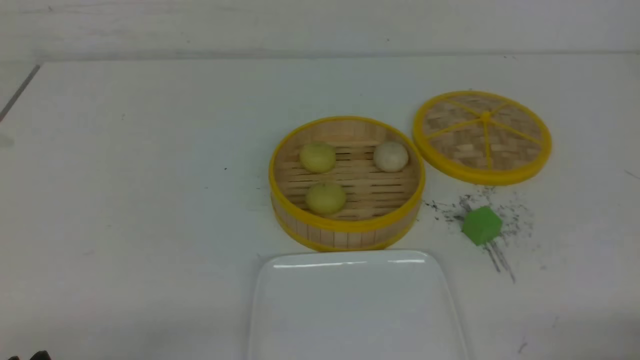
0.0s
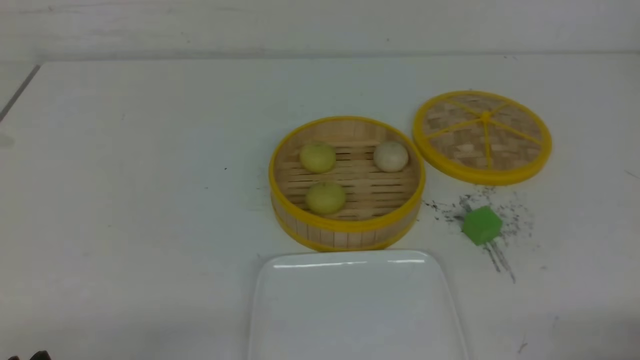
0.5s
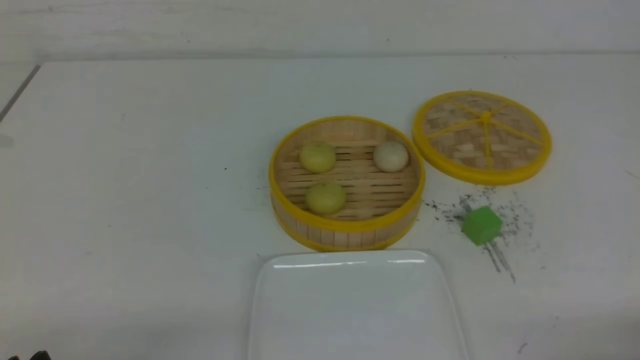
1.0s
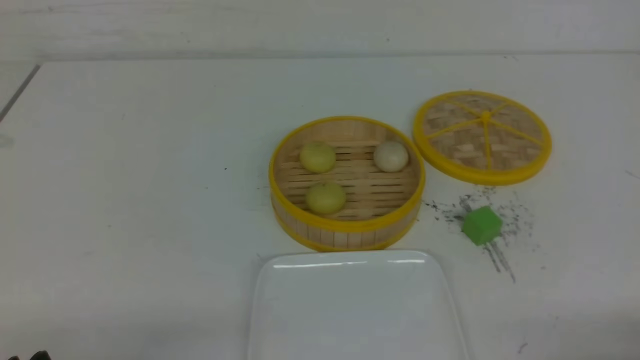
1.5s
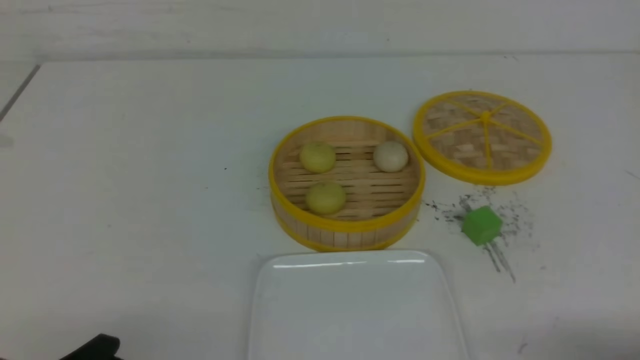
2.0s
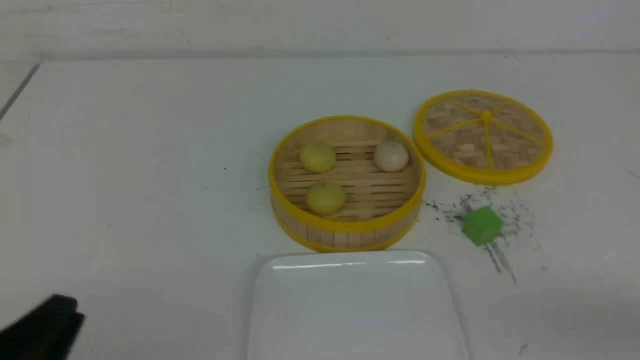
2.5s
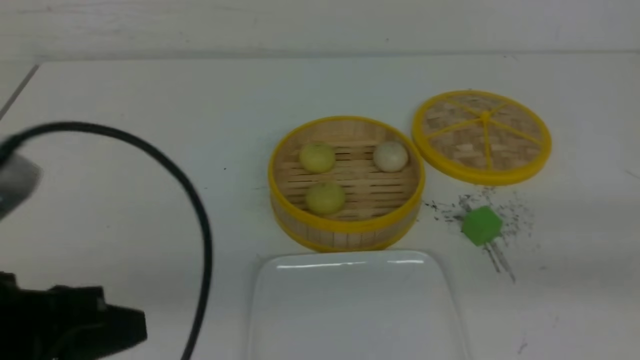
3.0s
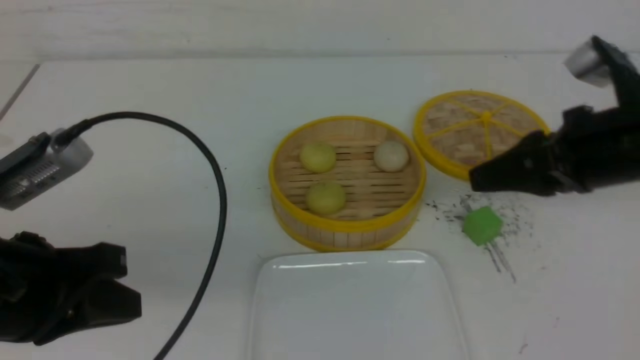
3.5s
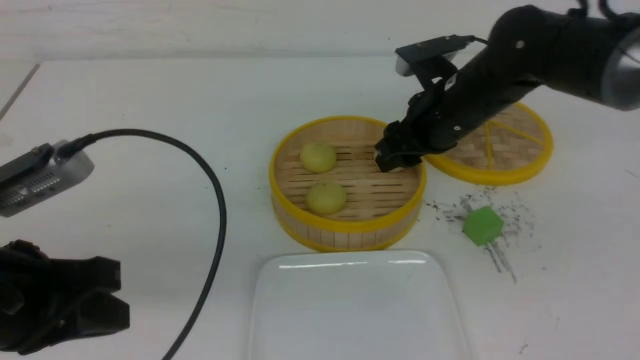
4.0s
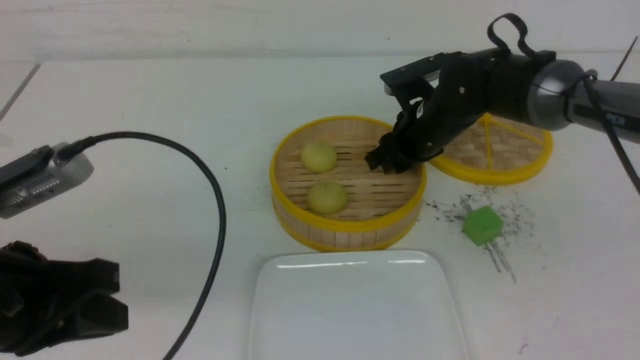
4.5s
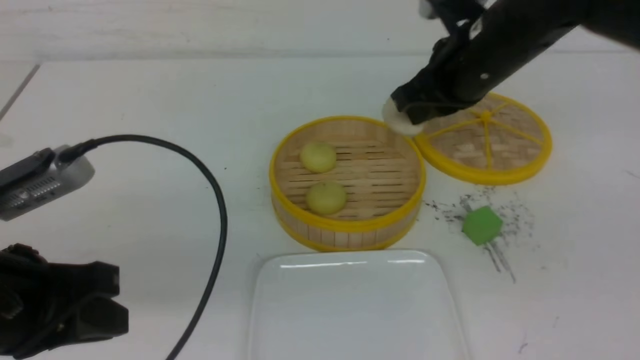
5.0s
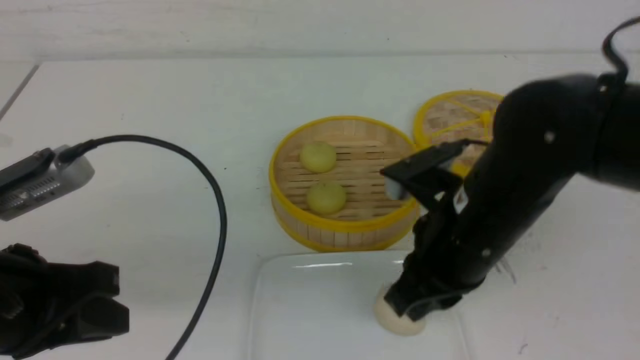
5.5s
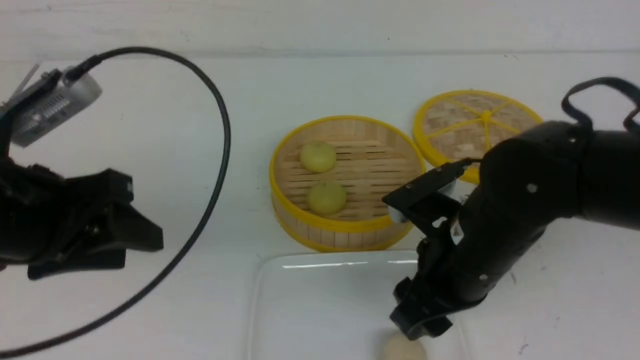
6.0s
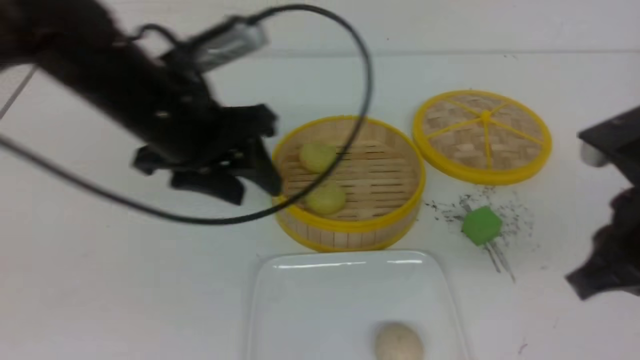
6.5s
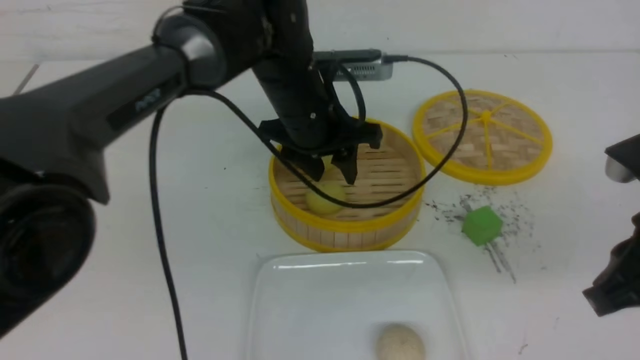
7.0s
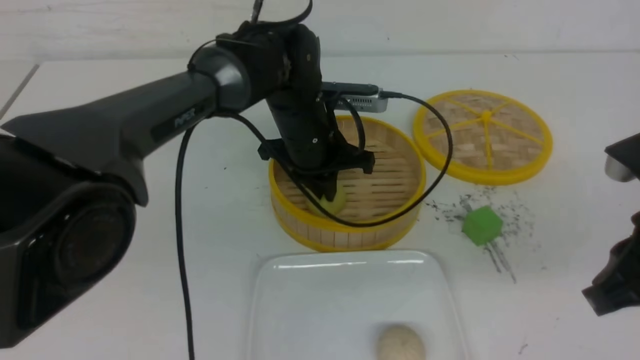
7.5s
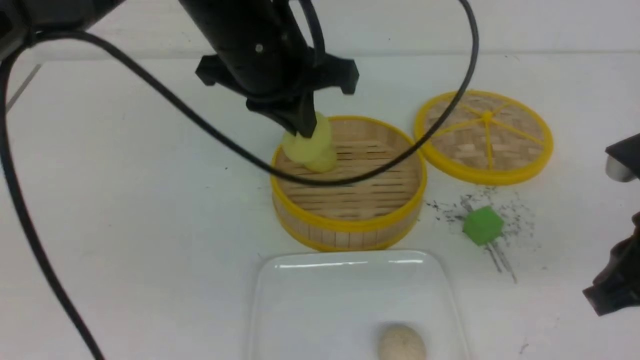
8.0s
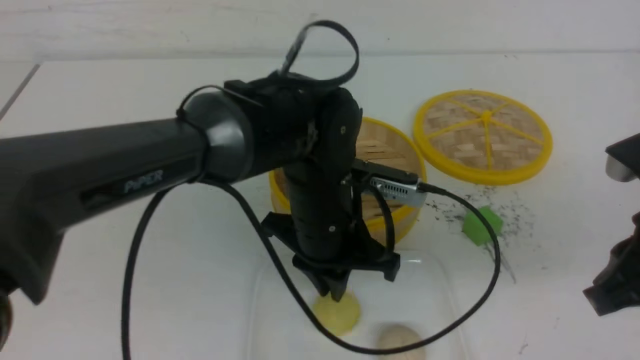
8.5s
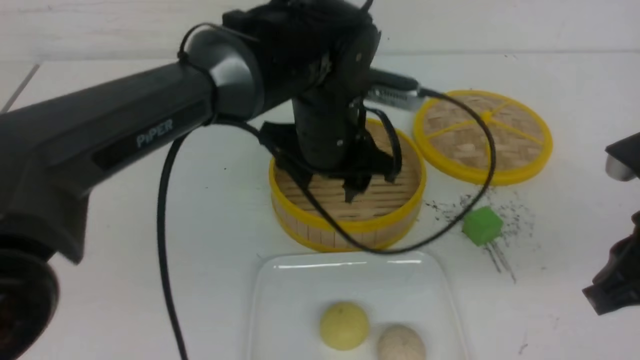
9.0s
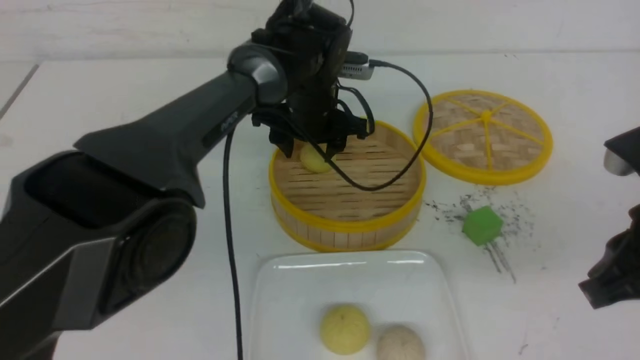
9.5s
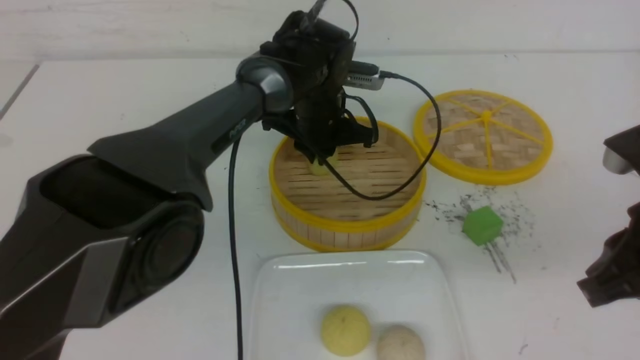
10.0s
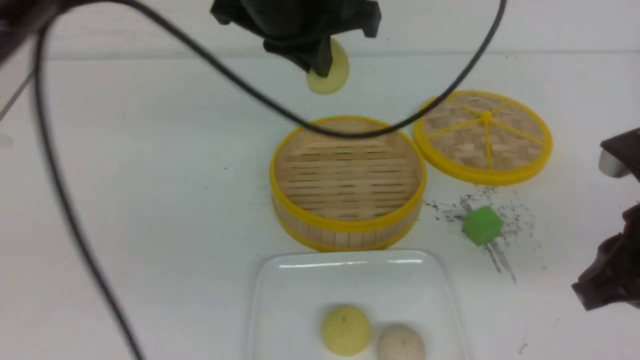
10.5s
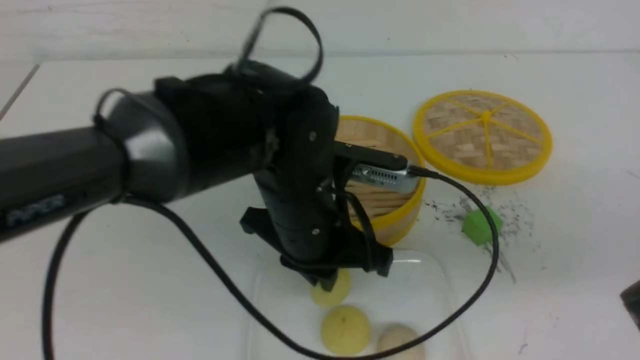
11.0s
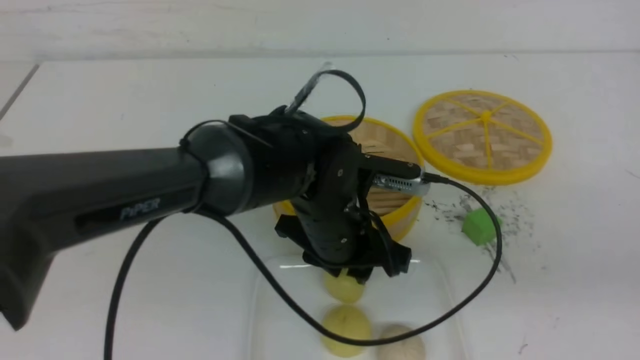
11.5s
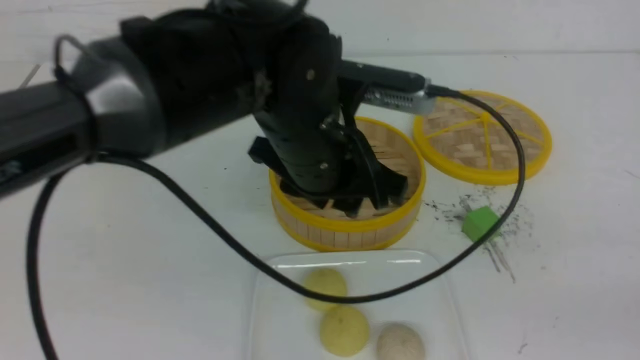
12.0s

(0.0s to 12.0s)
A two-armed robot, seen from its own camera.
Step, 0.0s - 4.5s: use the right arm to grab the steamed stuffed bun that is closest to it.
Step, 5.0s - 5.5s: use the right arm to put the steamed stuffed bun into the plate.
Step, 6.0s - 7.5s: use the left arm to grab the steamed stuffed bun that is closest to it.
Step, 8.0s - 8.5s: use the left arm to put the steamed stuffed bun into the plate.
Step, 9.0s - 10.0s: use the left arm to grab the steamed stuffed bun that is closest to it.
Step, 10.5s - 11.5s: use the left arm to put the steamed stuffed bun into the plate.
2.0s - 4.0s: The left gripper moves upward and forward, about 15 cm, and closes. The right gripper shifts roughly 40 cm forward and to the left, and closes, then reopens.
4.0s - 6.0s: The right gripper moves backward, approximately 15 cm, and closes, then reopens, while the left gripper travels forward by about 5 cm, and opens up.
6.0s - 8.0s: The left gripper is displaced to the right and forward by some 20 cm, and closes. The right gripper is displaced to the right, upward and backward by about 15 cm, and closes up.
8.0s - 10.0s: The left gripper heads forward and downward, covering roughly 15 cm, and opens, then closes once more.
10.0s - 12.0s: The left gripper travels backward by about 15 cm. The right gripper heads backward and to the right, covering some 20 cm.

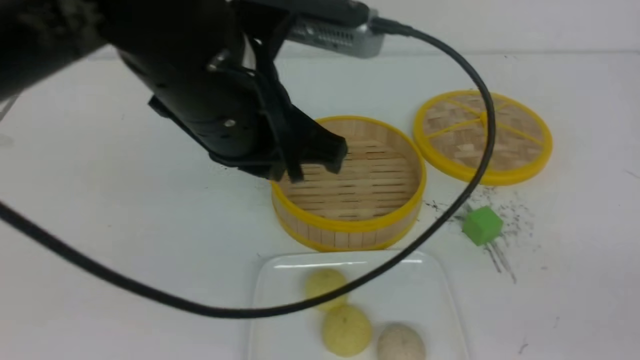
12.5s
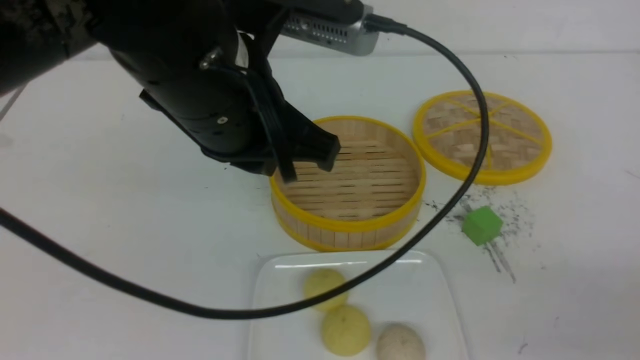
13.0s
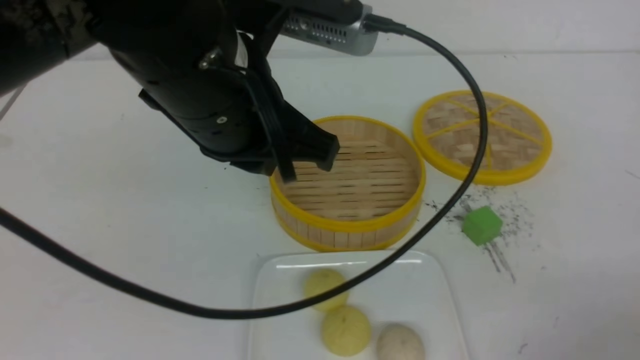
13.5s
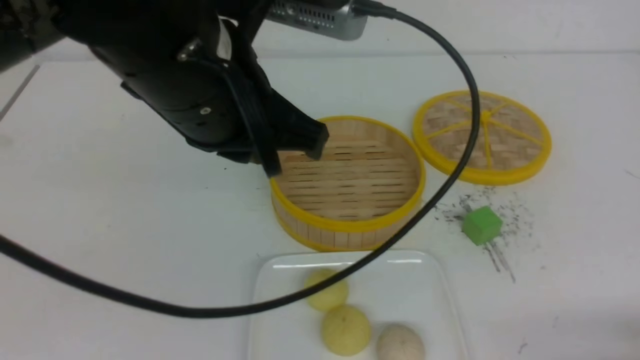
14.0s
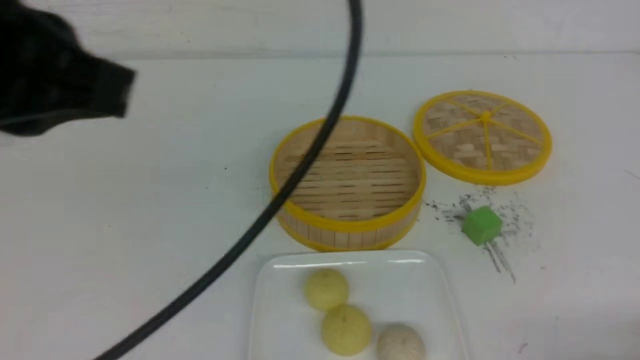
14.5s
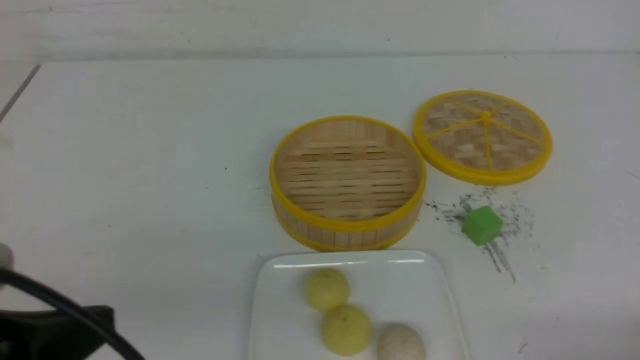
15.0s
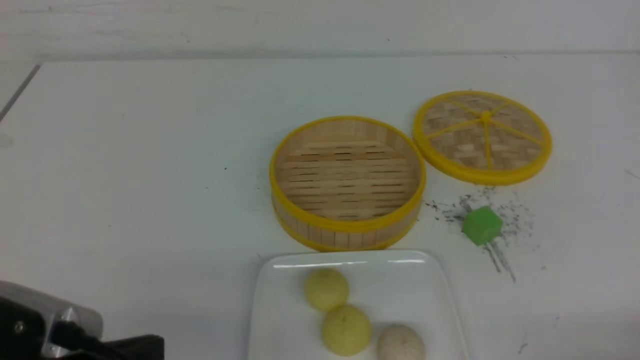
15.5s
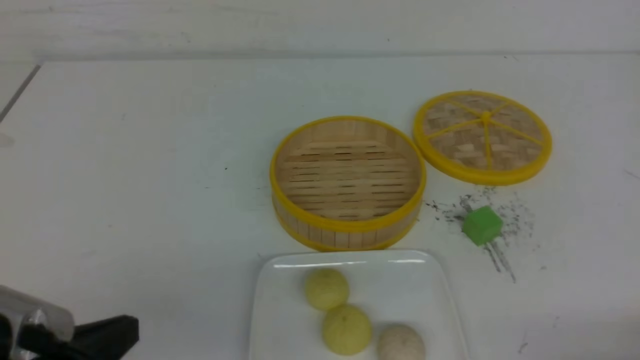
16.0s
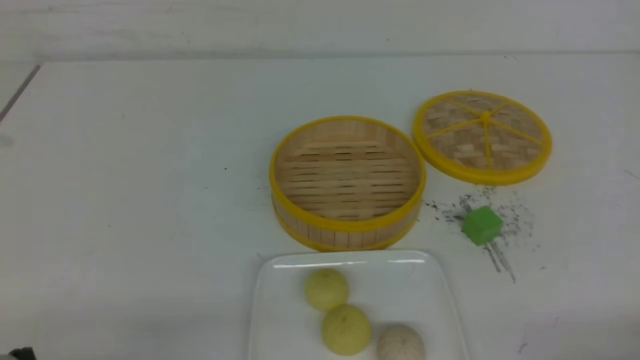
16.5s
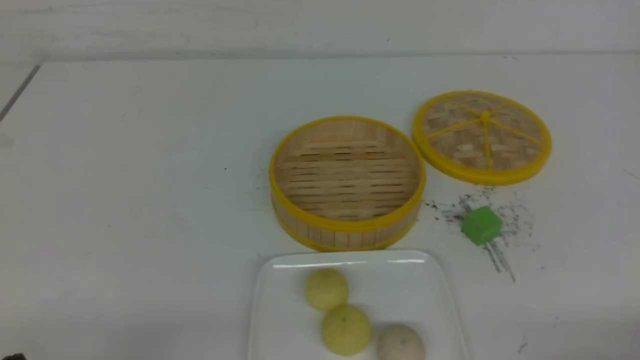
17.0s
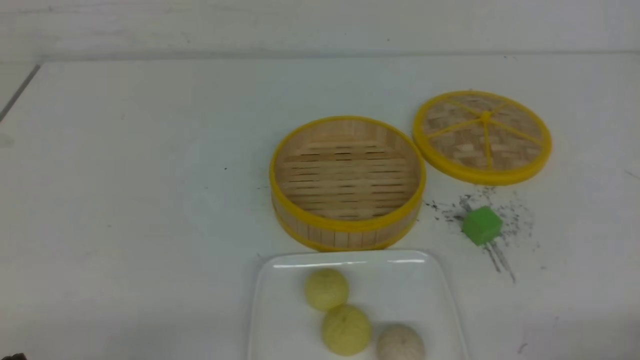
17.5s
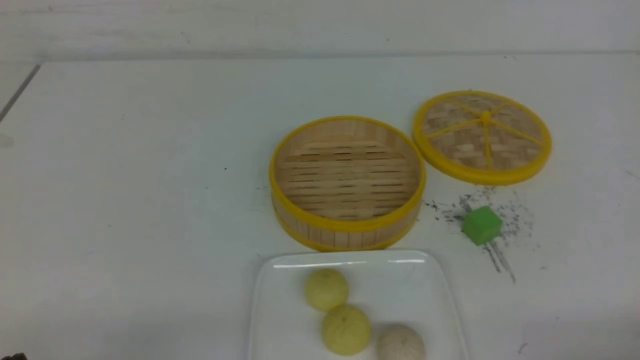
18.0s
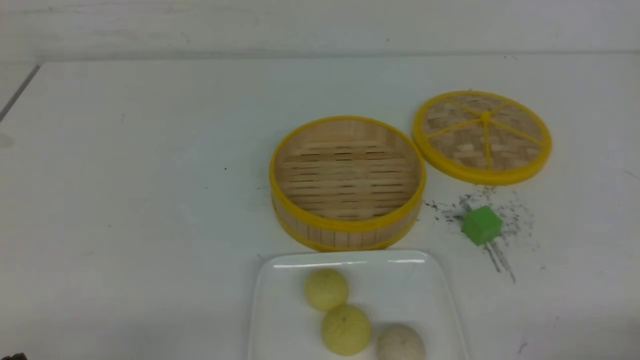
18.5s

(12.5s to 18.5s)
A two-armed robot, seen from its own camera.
12.5s - 14.5s: The left gripper moves to the left, backward and upward, approximately 15 cm. The right gripper travels downward by roughly 15 cm.
14.5s - 16.5s: The left gripper heads downward, covering approximately 25 cm.

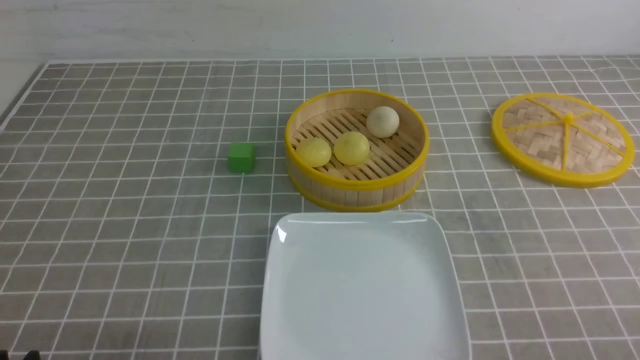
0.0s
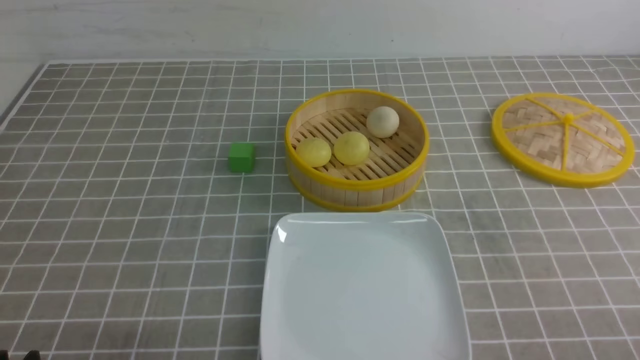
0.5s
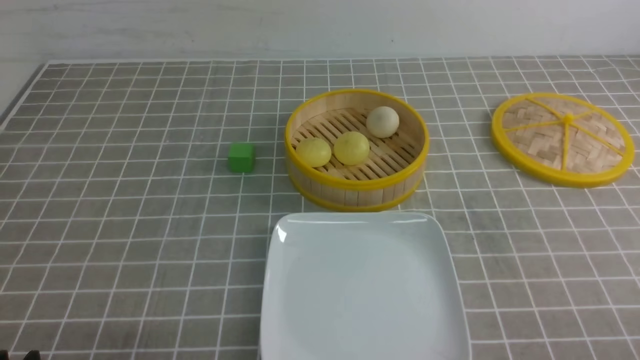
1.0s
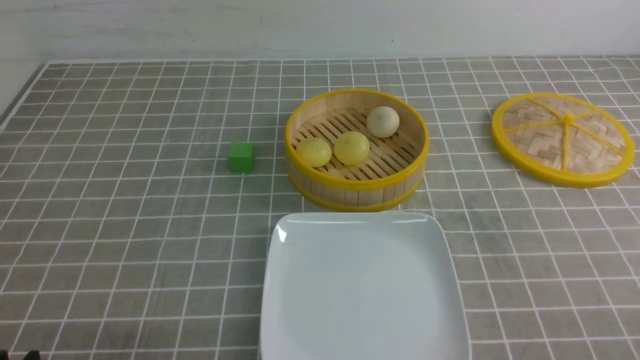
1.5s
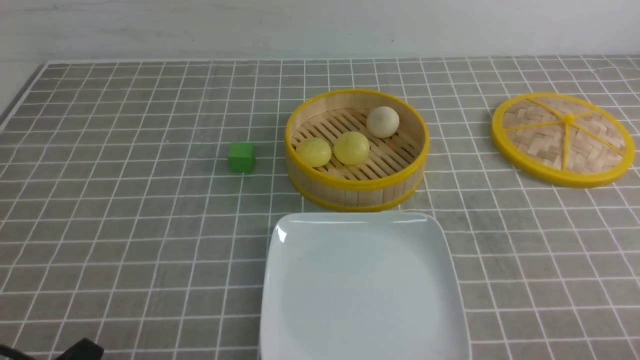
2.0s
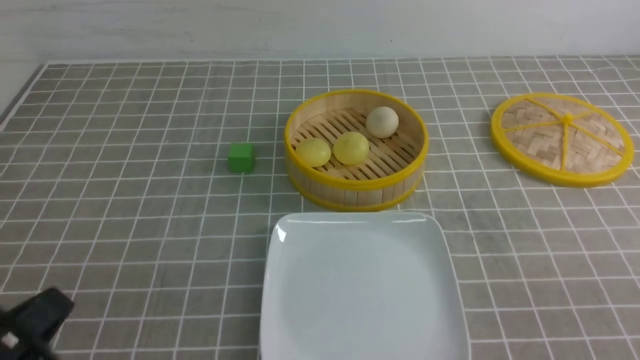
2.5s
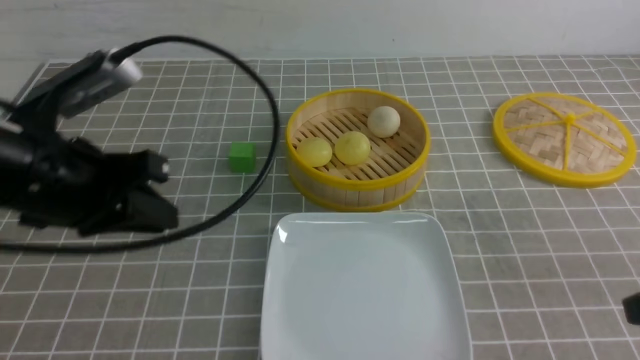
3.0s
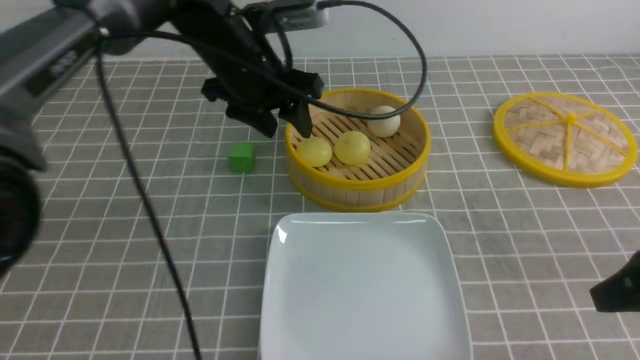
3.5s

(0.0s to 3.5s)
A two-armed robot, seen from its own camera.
2.0s - 3.5s: The left gripper shifts some 40 cm forward and to the right, and opens up. Meanwhile the right gripper goes about 15 cm forward and upward, and closes, then opens again.
